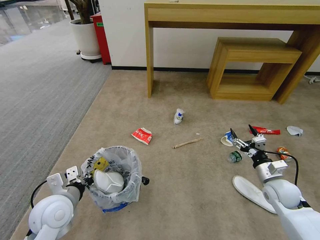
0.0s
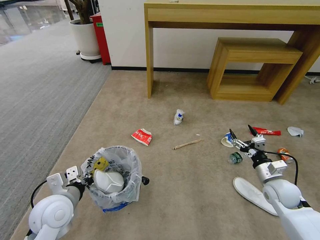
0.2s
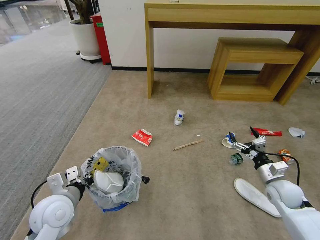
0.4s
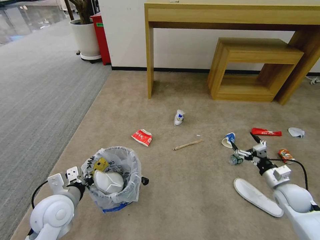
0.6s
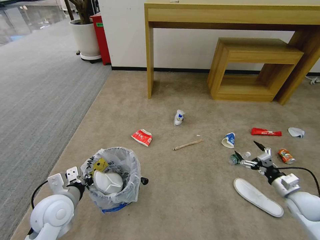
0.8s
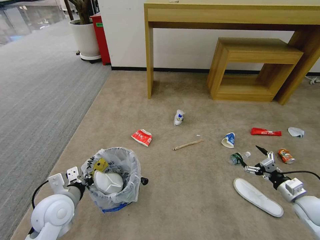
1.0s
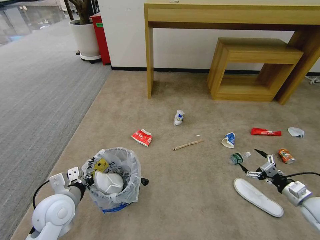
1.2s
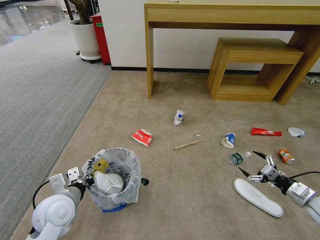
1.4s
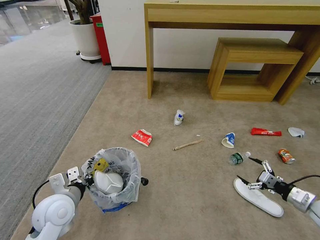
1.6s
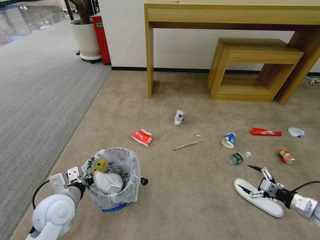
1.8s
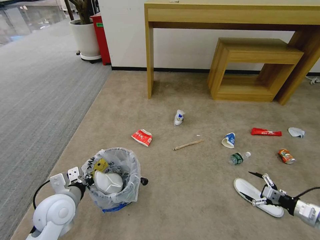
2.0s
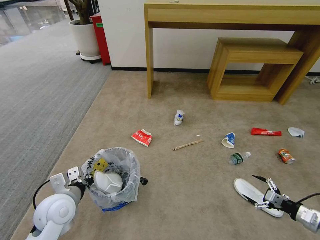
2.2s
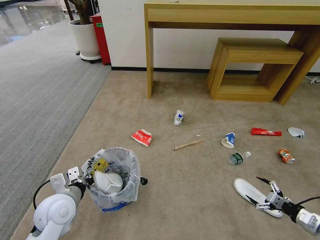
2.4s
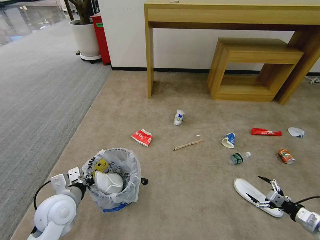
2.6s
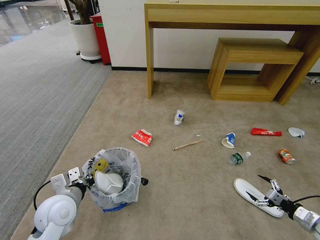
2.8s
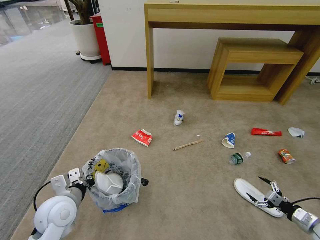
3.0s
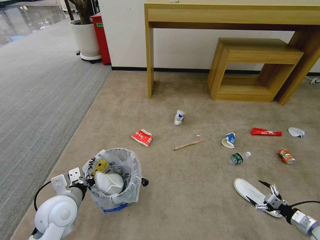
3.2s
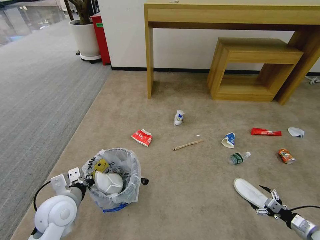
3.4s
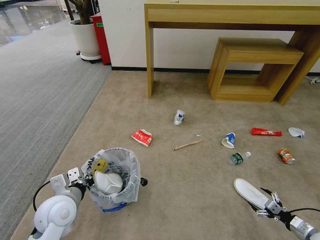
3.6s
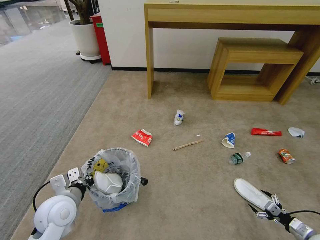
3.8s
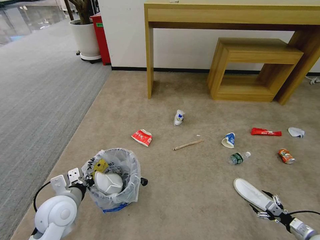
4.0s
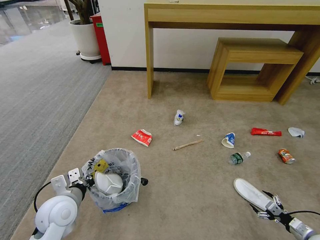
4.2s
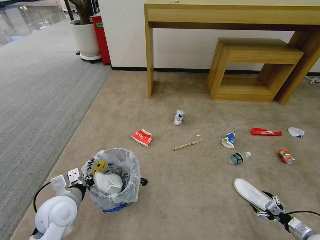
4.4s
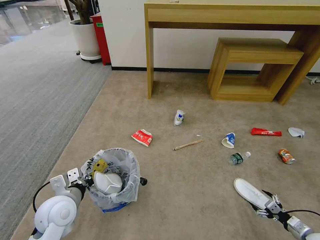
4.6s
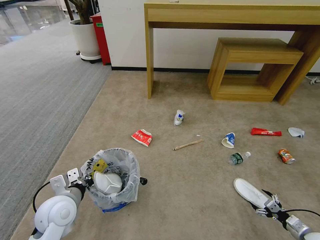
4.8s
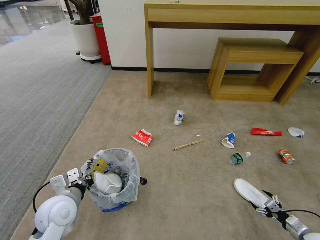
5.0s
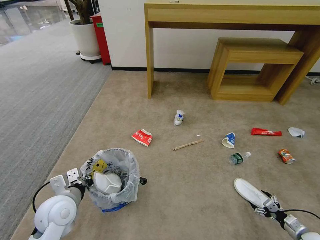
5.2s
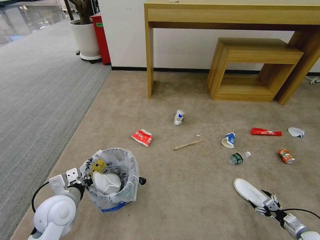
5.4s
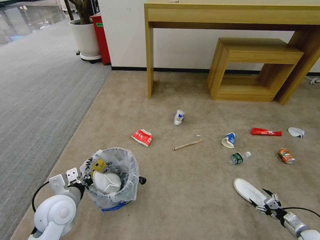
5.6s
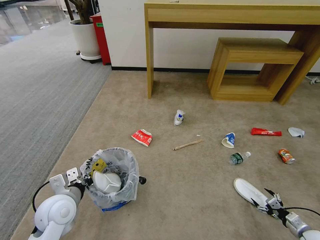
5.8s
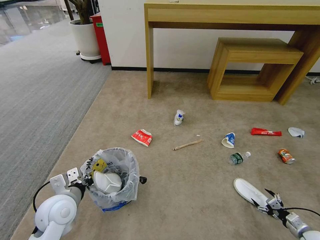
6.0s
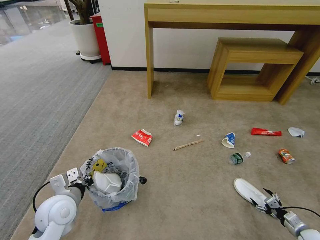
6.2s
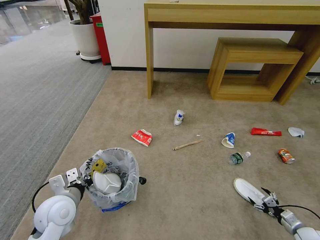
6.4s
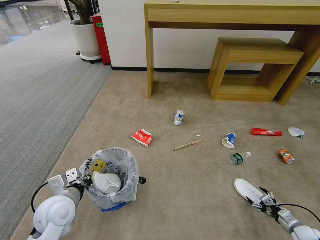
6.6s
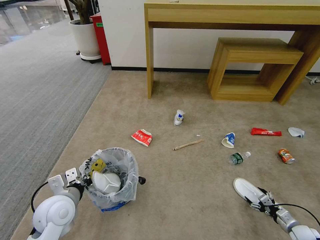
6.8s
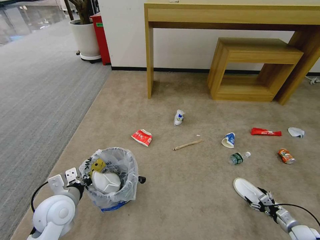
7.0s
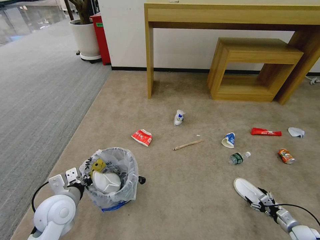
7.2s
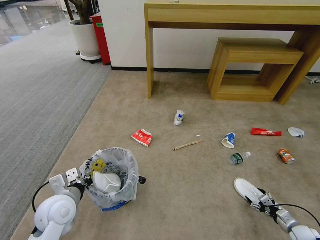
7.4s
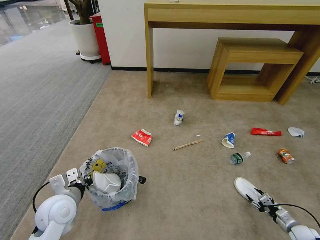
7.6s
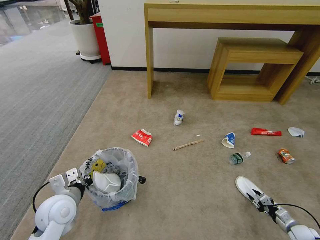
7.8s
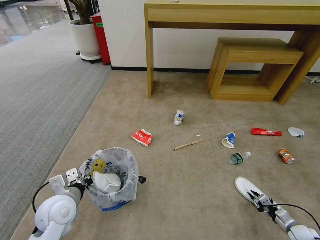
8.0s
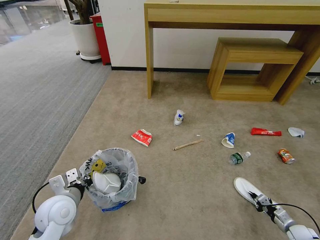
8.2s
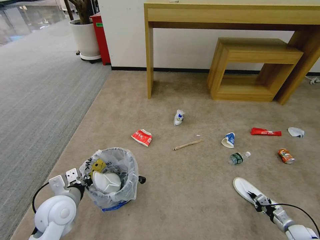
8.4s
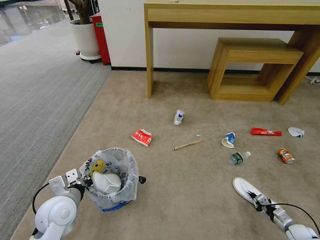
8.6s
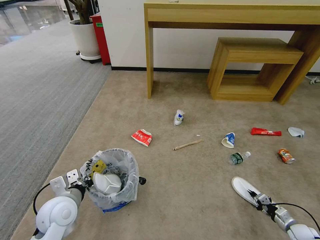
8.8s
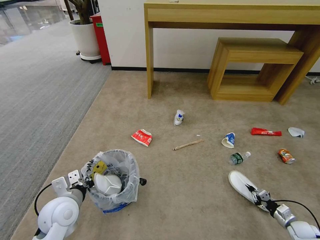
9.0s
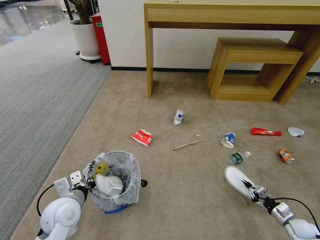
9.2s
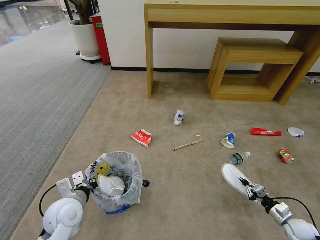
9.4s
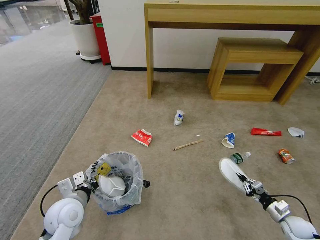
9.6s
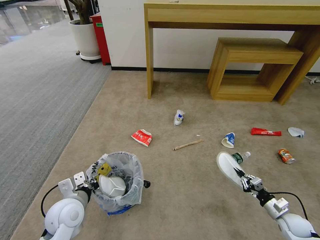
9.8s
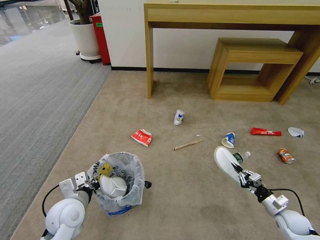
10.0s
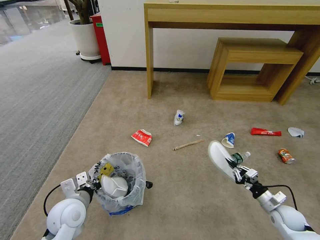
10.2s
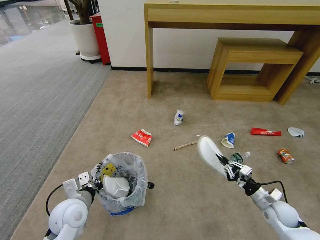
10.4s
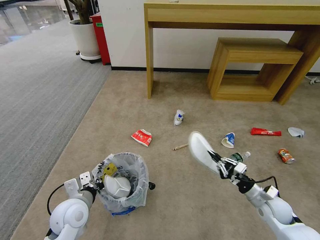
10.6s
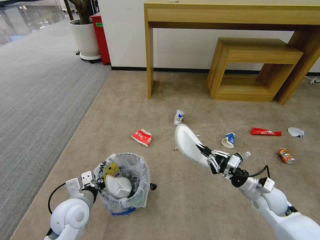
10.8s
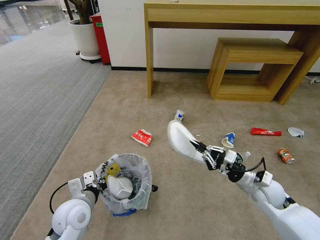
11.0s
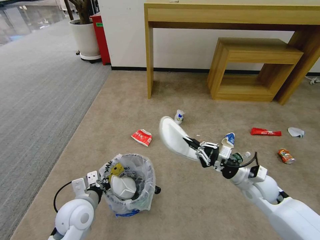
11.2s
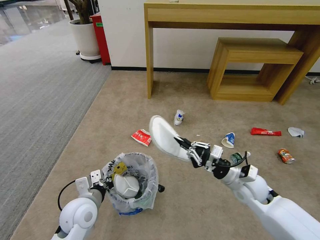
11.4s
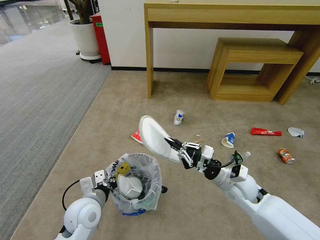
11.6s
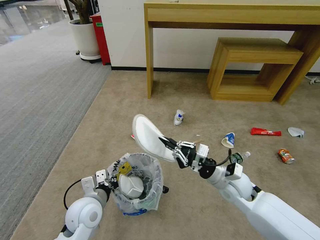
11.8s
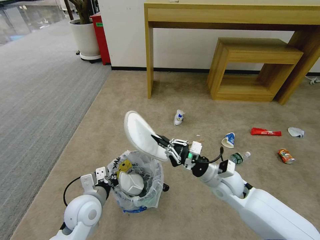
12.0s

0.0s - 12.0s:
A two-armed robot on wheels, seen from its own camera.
Task of the whole recording: Pick up the trash bin and place the garbage on the floor into it.
0.0s - 1.6s: The right gripper moves to the right and backward, some 15 cm.
1.6s - 3.0s: The right gripper shifts some 10 cm downward.
3.0s - 4.4s: The right gripper is displaced downward by roughly 10 cm.
4.4s - 6.0s: The grippers make only small movements.
6.0s - 7.6s: The grippers stay close to where they were, moving slightly.
7.6s - 9.0s: The right gripper closes its fingers.
9.0s - 10.4s: The right gripper heads to the left and upward, covering approximately 20 cm.
10.4s - 12.0s: The right gripper goes roughly 25 cm to the left and upward.

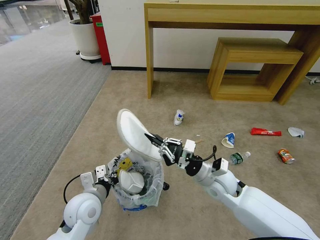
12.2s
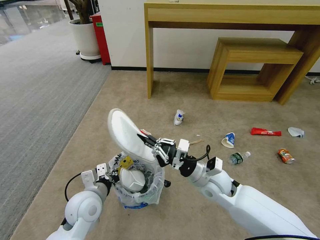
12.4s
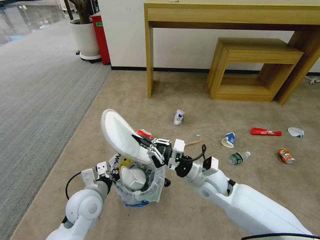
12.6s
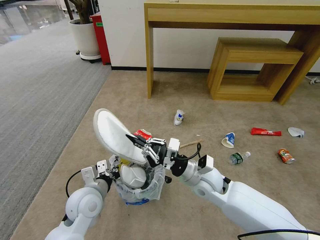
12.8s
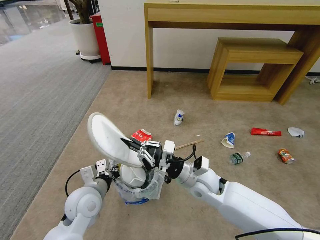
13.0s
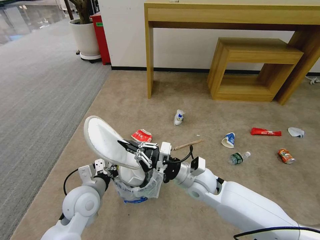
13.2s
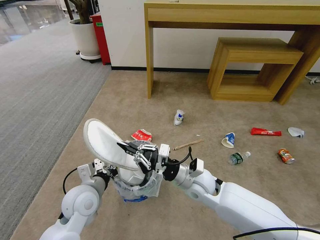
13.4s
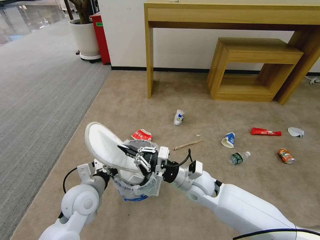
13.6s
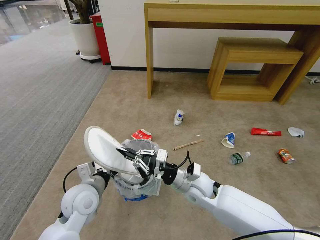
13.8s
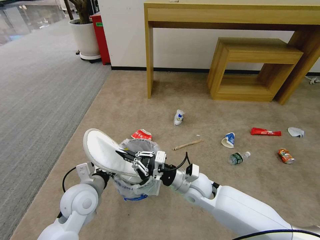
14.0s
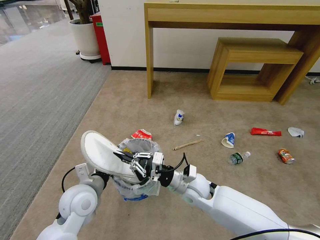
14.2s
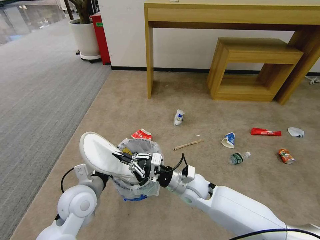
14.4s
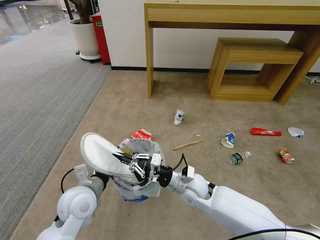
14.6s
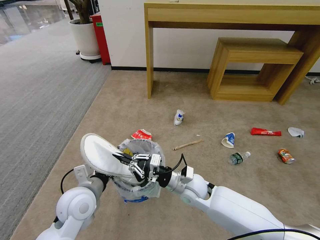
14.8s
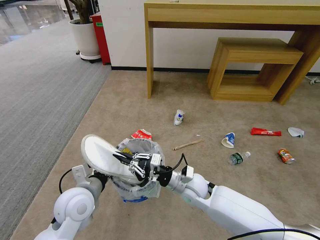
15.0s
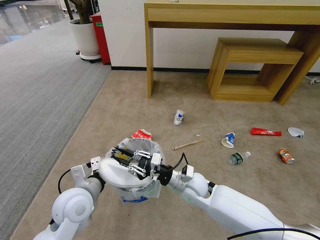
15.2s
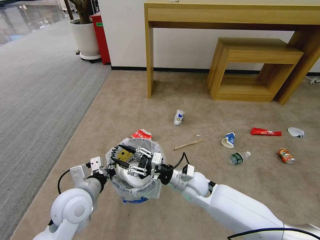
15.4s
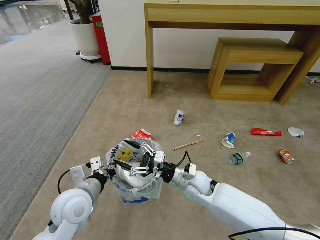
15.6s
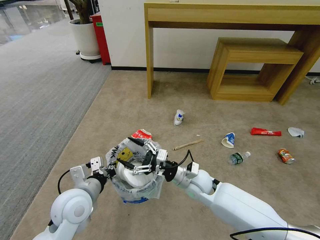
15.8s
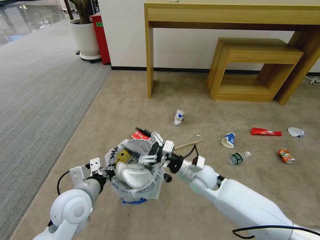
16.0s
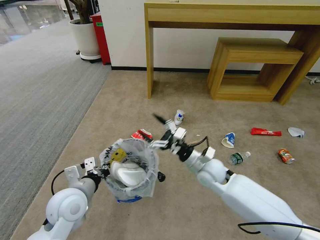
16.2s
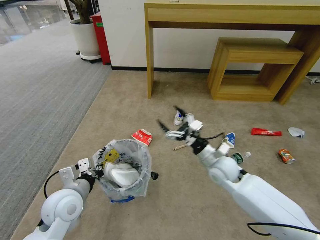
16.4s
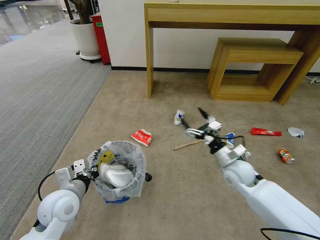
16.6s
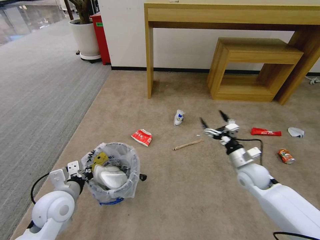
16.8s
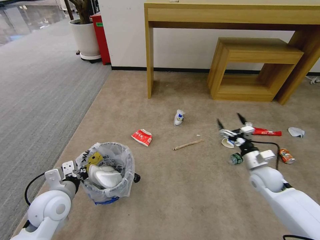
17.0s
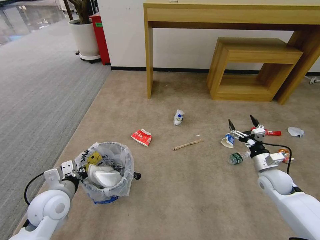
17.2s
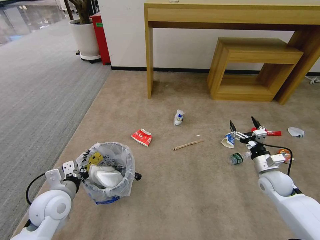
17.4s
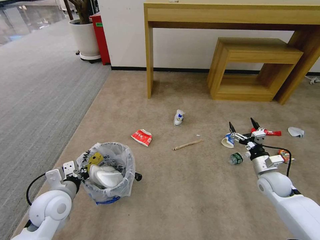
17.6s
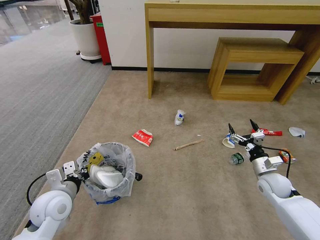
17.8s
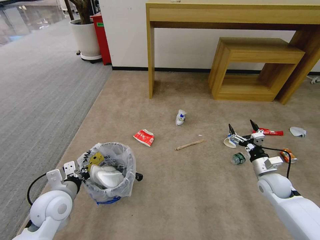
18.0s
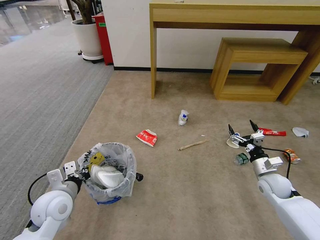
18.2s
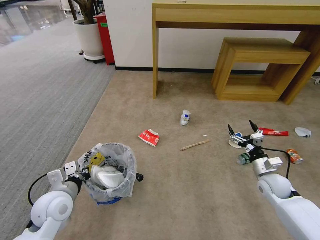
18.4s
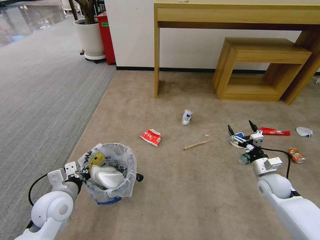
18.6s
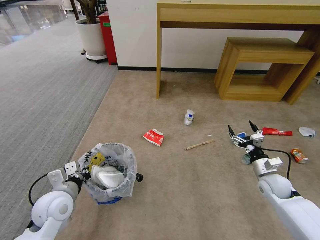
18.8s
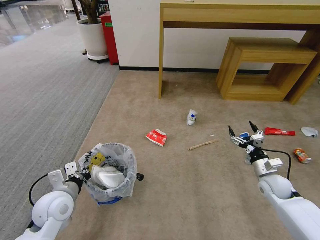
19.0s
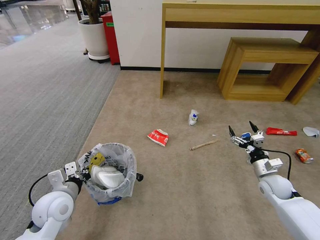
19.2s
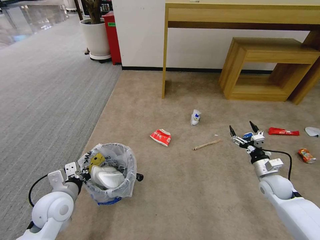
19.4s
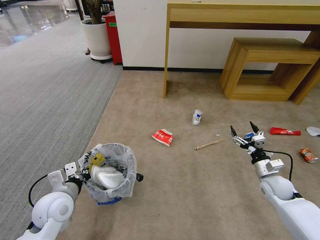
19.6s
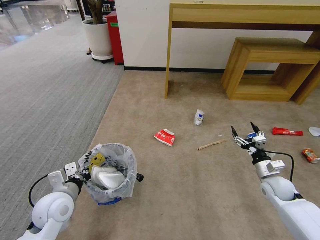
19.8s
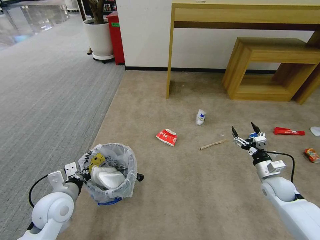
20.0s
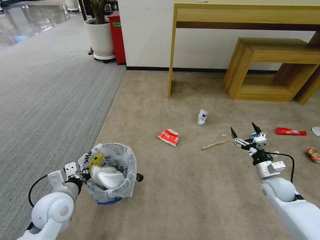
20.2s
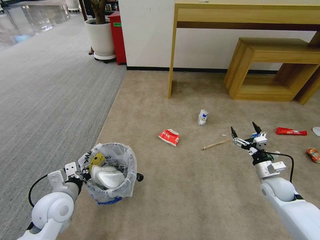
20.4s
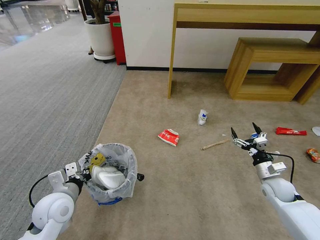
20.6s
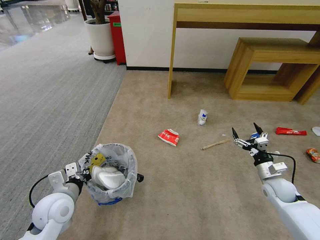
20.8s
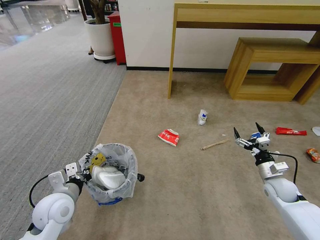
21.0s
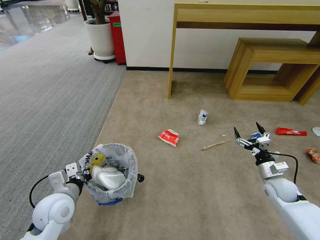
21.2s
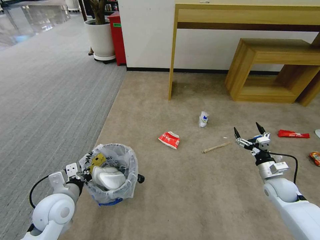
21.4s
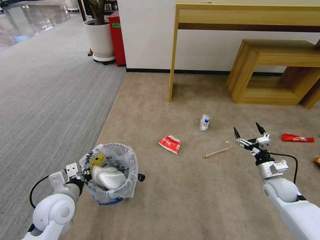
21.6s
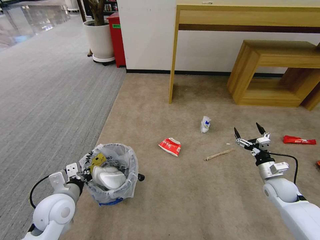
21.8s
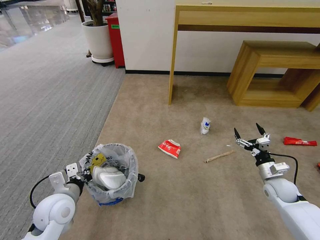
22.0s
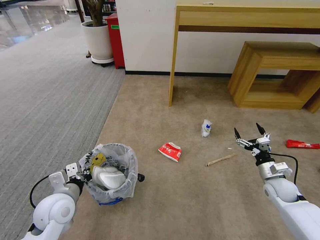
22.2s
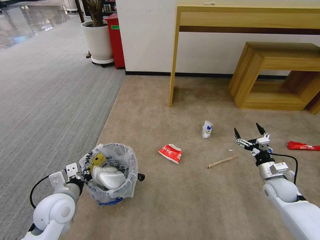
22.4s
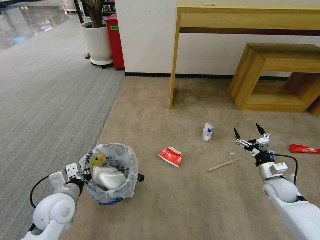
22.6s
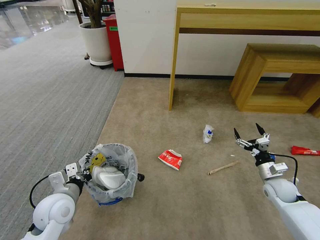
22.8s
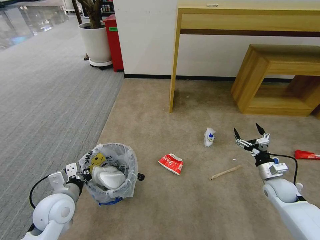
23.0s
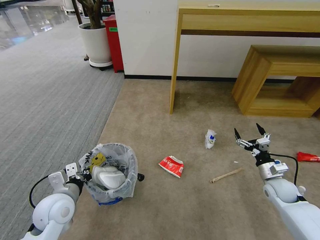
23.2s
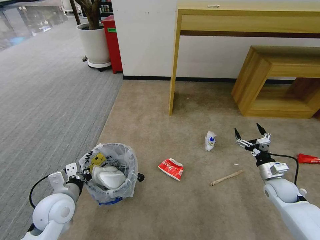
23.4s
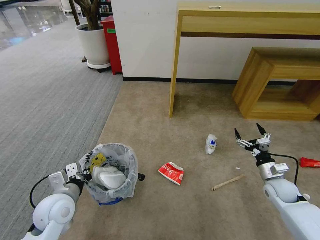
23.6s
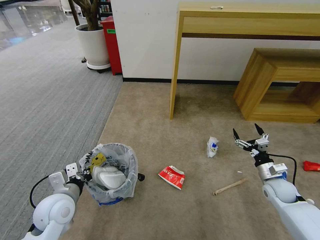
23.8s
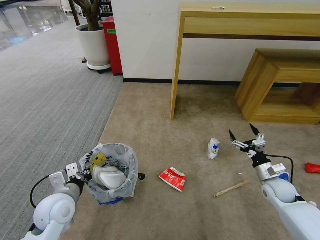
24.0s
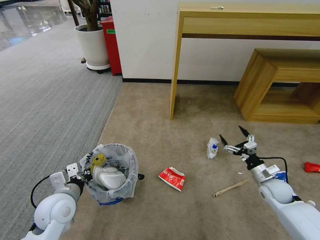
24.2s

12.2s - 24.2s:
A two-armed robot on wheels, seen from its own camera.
Task of the whole recording: Pick up the trash bin and place the garbage on the floor into it.
12.2s - 13.8s: The right gripper travels to the left by about 5 cm.
13.8s - 15.2s: The grippers make only small movements.
15.2s - 16.6s: The right gripper travels to the right by roughly 15 cm, and opens.
16.6s - 18.2s: The right gripper travels to the right by approximately 15 cm.
18.2s - 19.8s: The grippers make only small movements.
19.8s - 21.2s: Both grippers stay put.
21.2s - 22.6s: Both grippers stay put.
